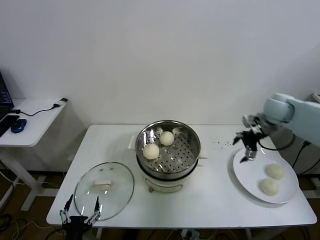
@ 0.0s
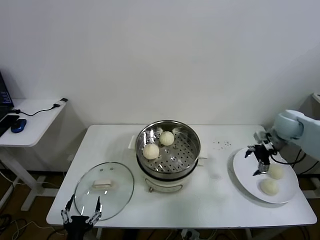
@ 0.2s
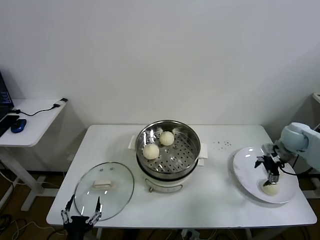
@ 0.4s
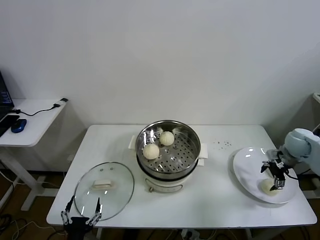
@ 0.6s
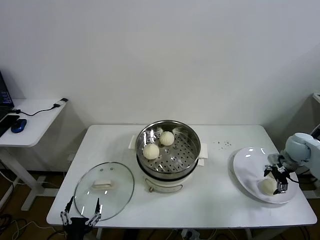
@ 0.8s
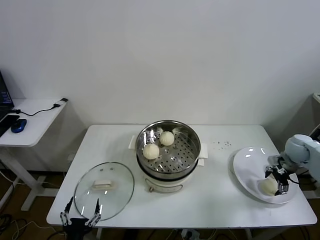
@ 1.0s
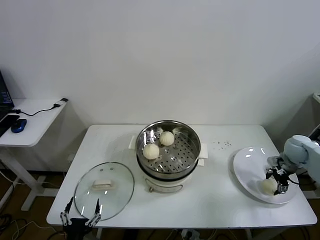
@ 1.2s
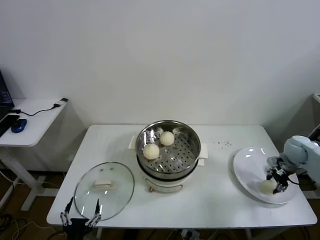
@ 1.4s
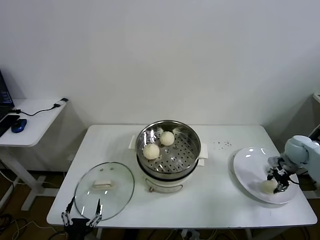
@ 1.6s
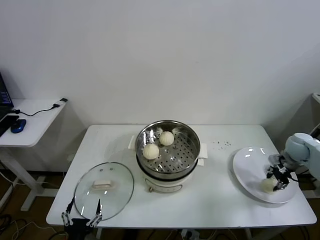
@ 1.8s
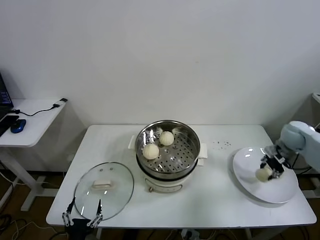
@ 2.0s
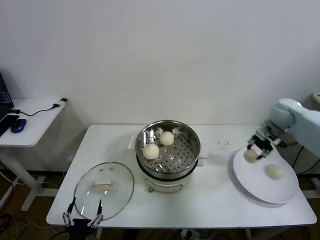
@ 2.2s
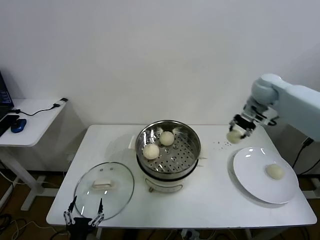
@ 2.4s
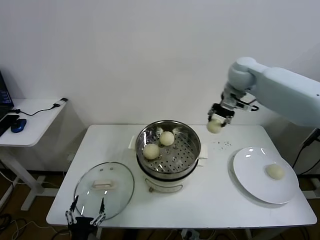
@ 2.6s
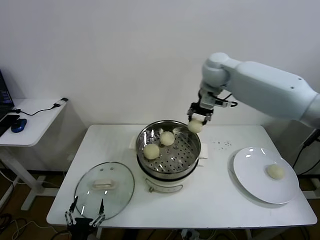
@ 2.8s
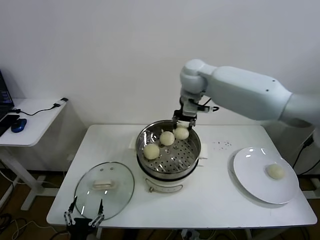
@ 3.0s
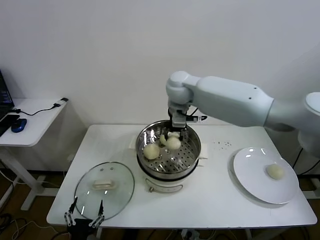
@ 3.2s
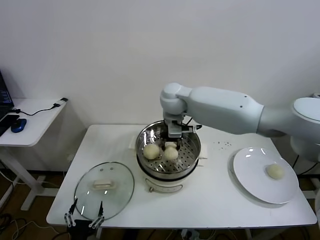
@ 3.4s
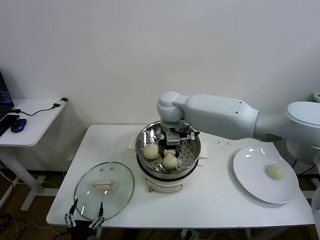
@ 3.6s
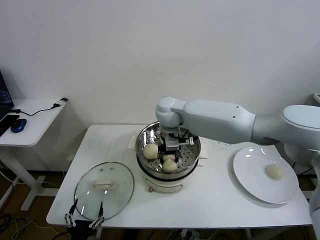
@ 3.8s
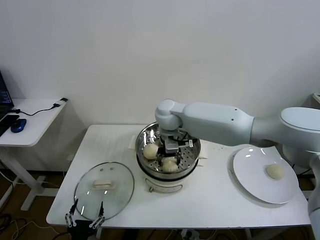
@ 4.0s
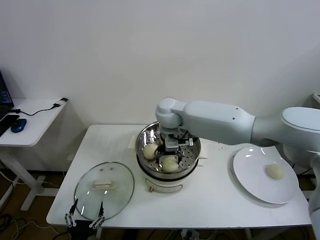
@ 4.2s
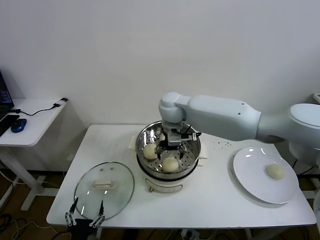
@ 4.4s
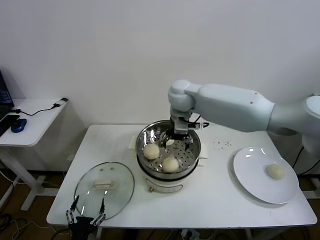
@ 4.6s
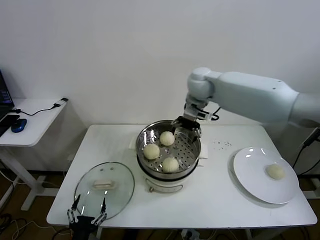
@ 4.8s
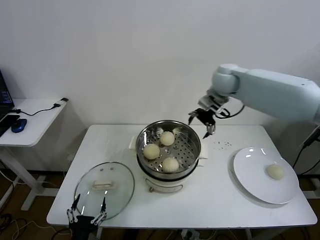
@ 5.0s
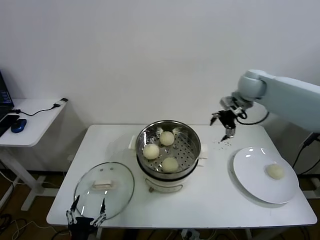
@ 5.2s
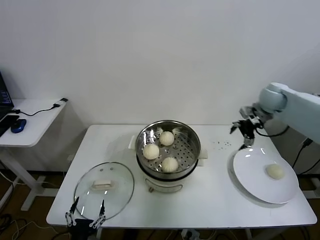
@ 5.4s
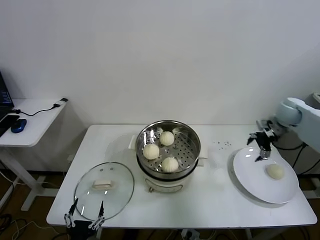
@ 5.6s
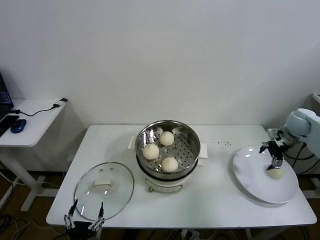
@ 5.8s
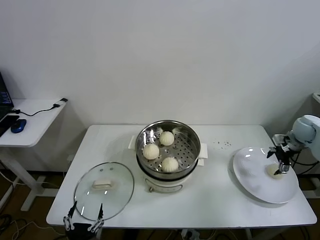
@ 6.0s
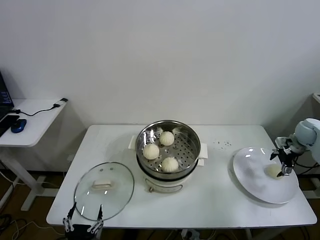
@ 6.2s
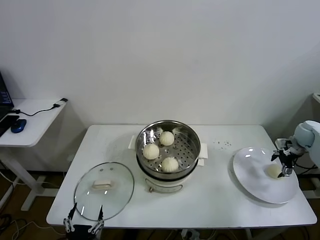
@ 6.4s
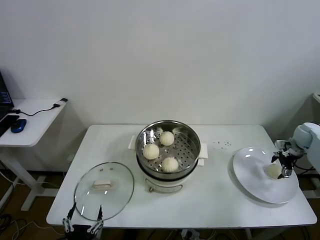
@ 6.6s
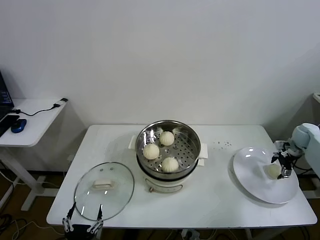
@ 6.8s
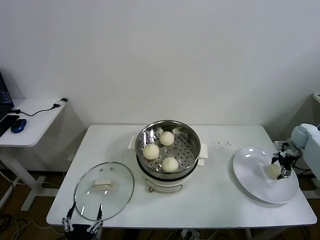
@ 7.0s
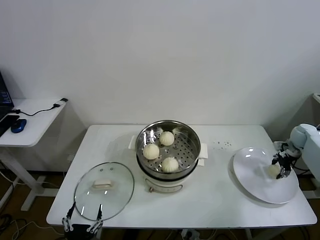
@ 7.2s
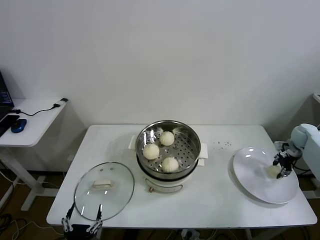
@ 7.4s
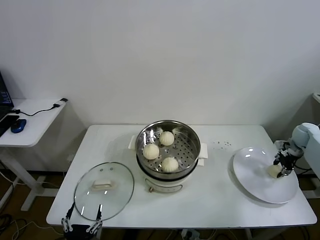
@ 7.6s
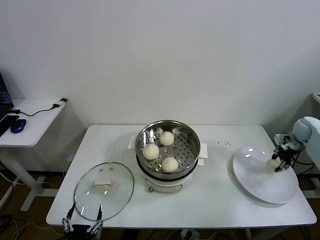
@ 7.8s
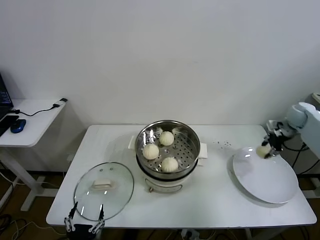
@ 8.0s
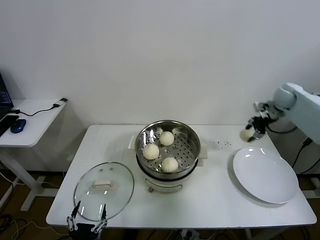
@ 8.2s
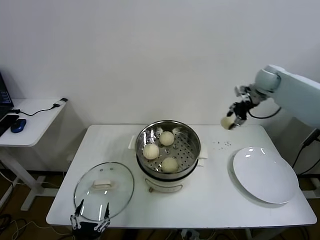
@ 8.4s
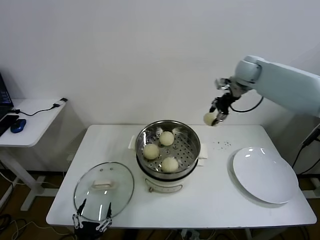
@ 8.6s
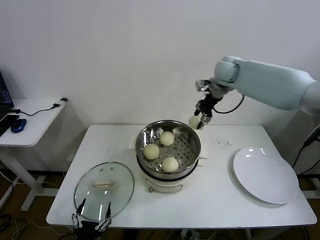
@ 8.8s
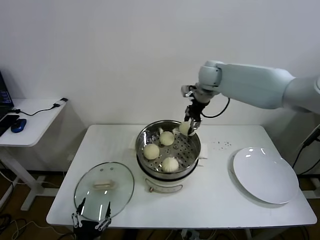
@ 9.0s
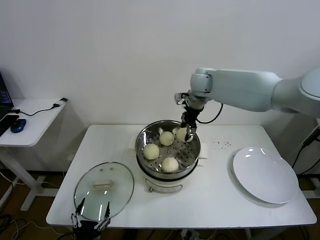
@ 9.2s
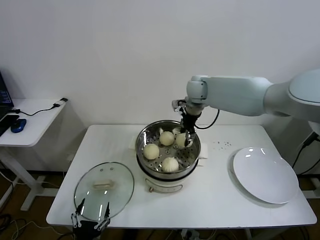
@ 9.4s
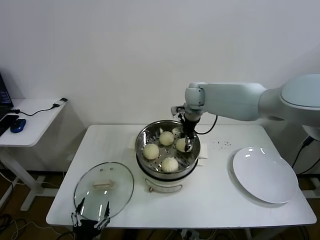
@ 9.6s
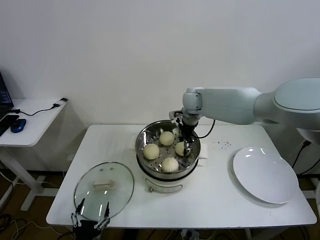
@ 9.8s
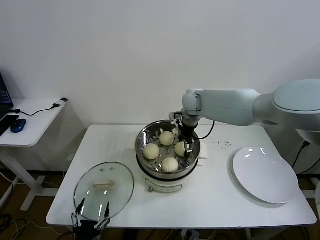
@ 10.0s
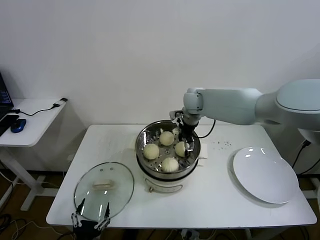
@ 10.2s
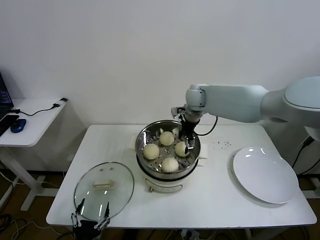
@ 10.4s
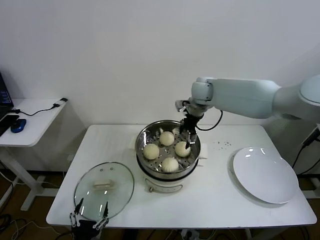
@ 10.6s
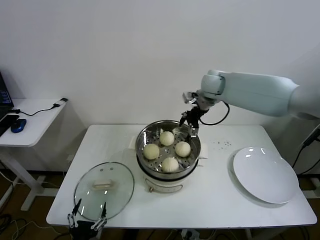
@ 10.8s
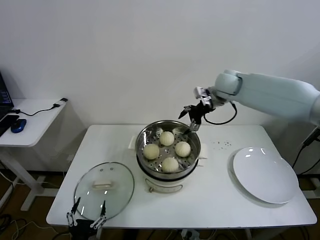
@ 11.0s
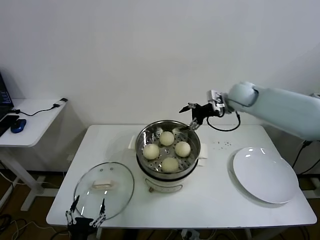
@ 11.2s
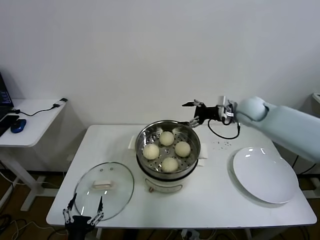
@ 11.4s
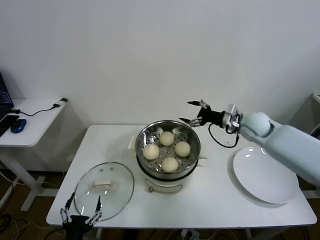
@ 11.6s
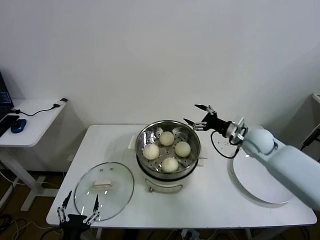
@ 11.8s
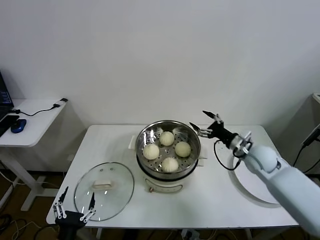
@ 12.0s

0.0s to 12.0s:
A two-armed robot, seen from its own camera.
Task of the whole recording: take steamed baozi put them in steamer.
Step, 0.0s to 1.2s: Grasp the baozi in the plate with right gripper.
Step, 1.4s to 4.4s: Place the baozi on the steamer with right gripper.
Step, 4.6s to 7.2s: Grasp the baozi in the plate with right gripper.
Step, 7.4s to 10.4s: Place the baozi on the steamer with right gripper.
0.0s to 1.6s: The right gripper goes roughly 15 cm downward and to the right, and closes up.
1.6s to 3.0s: The right gripper travels to the left and upward by roughly 50 cm.
3.0s to 4.4s: The right gripper heads downward and to the left, covering about 10 cm, and opens its fingers.
4.4s to 6.0s: The right gripper travels to the right by about 50 cm.
6.0s to 7.6s: The right gripper is displaced downward by roughly 5 cm, and closes its fingers.
7.6s to 9.0s: The right gripper travels to the left and upward by some 50 cm.
9.0s to 10.4s: The right gripper shifts roughly 10 cm downward, and opens its fingers.
10.4s to 12.0s: The right gripper goes some 30 cm to the right, backward and downward.

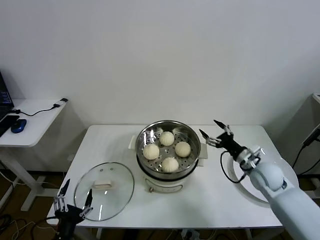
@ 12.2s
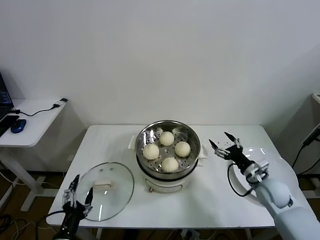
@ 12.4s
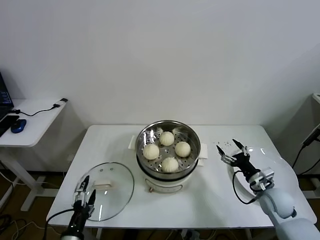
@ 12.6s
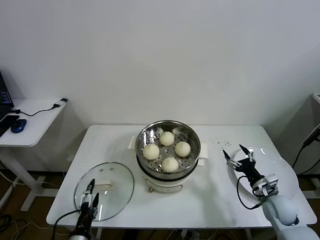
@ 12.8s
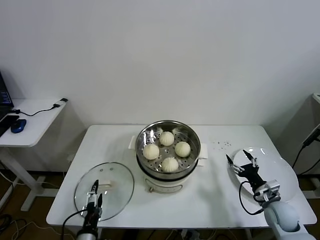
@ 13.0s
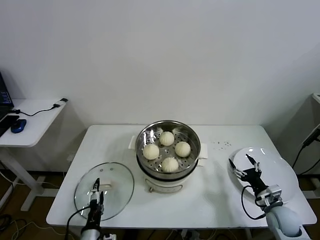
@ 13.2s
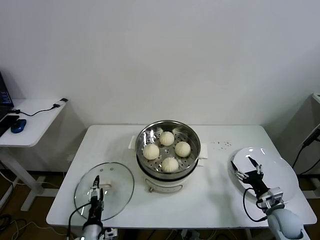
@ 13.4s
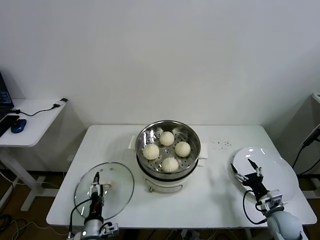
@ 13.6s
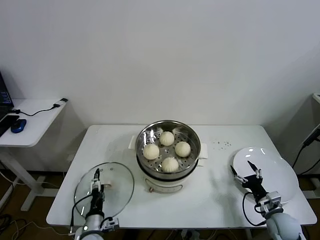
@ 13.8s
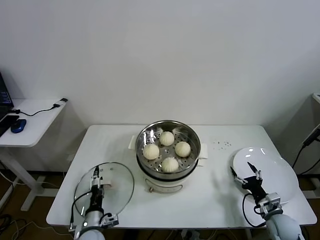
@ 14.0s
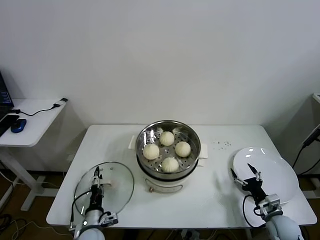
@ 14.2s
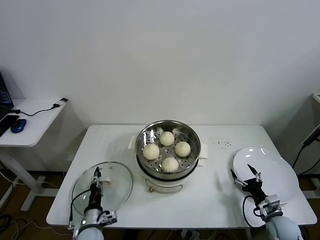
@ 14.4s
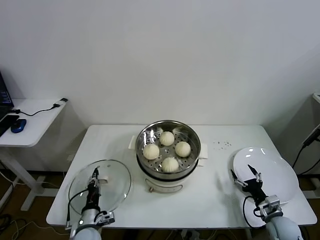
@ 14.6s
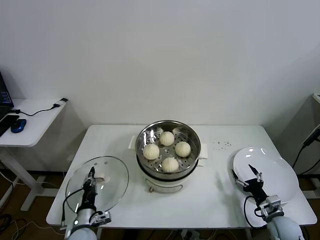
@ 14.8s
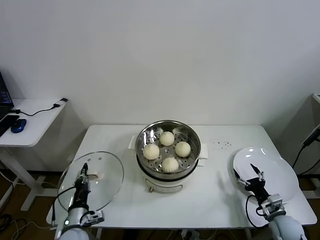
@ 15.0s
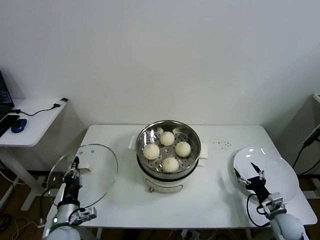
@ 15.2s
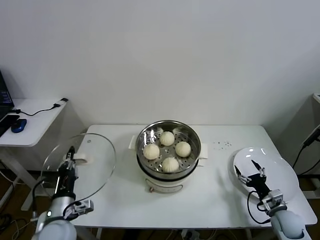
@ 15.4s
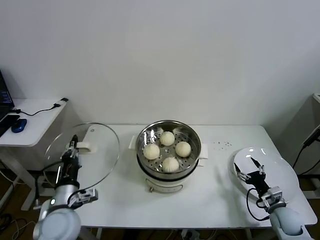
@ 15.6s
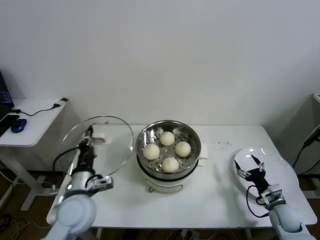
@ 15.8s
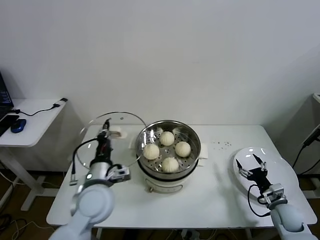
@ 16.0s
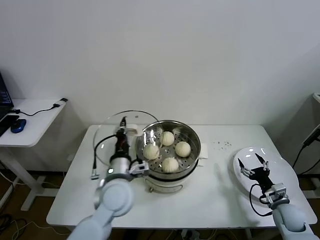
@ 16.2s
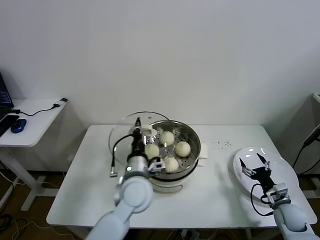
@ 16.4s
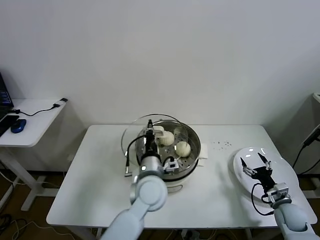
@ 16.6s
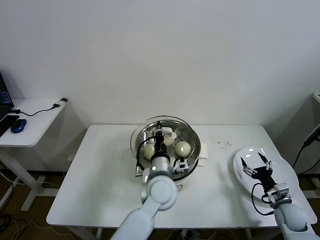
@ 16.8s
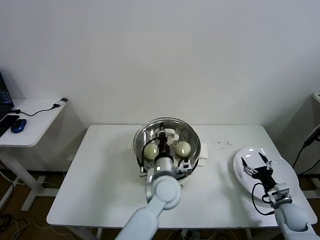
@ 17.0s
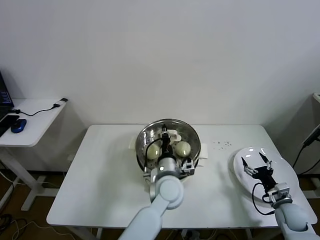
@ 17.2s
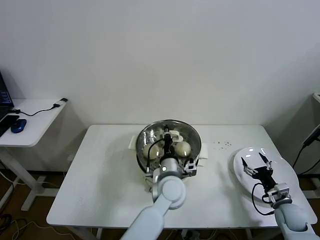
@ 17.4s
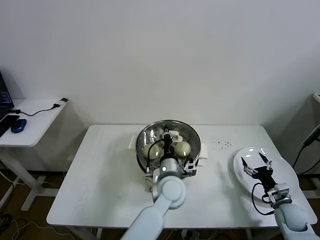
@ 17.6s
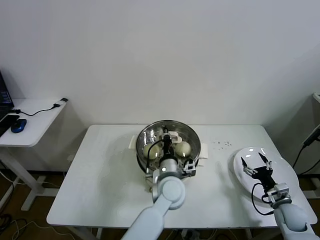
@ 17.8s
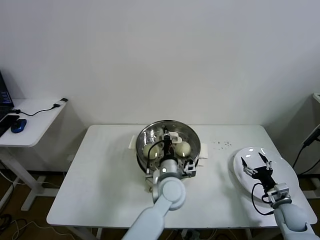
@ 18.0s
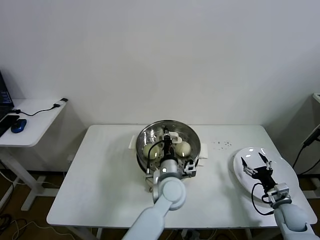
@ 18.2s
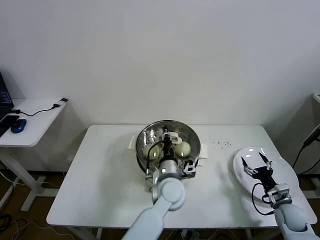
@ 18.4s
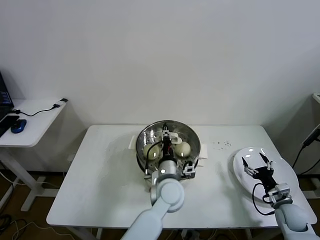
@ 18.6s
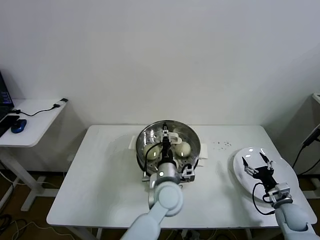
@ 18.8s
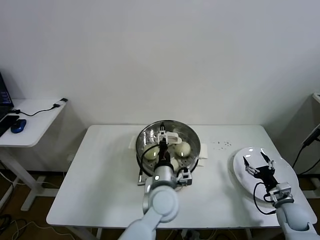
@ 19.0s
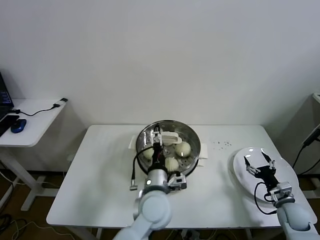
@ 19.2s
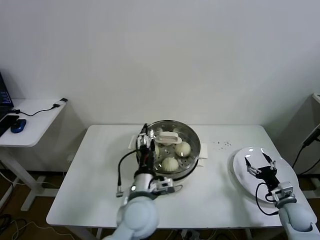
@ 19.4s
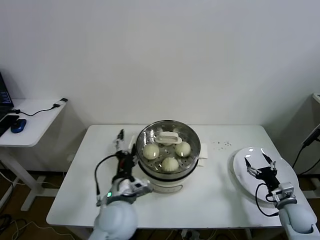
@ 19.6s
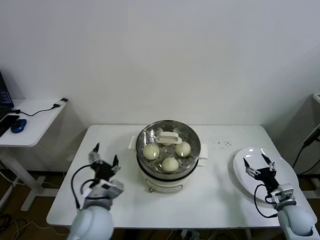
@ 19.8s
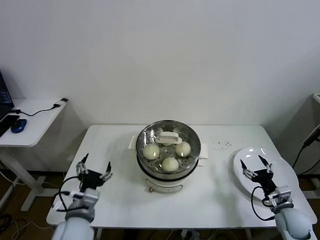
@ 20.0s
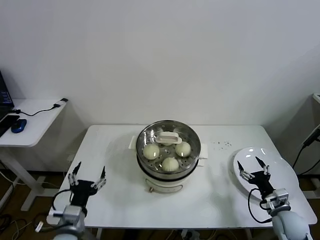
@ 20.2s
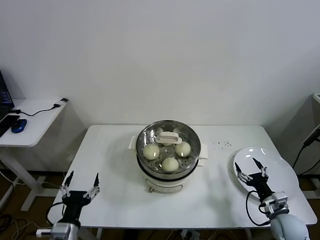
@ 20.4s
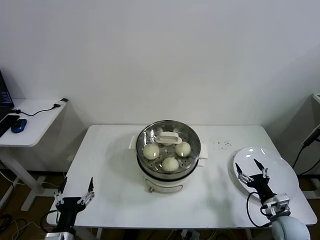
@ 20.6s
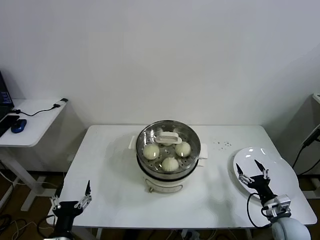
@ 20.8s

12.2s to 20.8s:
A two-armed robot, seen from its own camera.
Task of the whole recording: take steamed baozi put them in steamer.
Step, 12.2s to 14.6s: Grasp the pot lid with left gripper.
Step, 14.8s to 19.0s: Place the pot lid on the steamer with left gripper.
12.2s to 13.6s: The left gripper is displaced downward and forward by approximately 15 cm. Meanwhile the right gripper moves downward, backward and to the right, roughly 20 cm.
13.6s to 15.0s: The left gripper changes place by about 5 cm, and closes up.
15.0s to 16.6s: The left gripper goes roughly 30 cm to the right, upward and forward.
16.6s to 18.0s: The left gripper travels to the right by roughly 5 cm.
18.0s to 19.4s: The left gripper shifts about 10 cm backward and to the left, and opens.
19.4s to 20.8s: The right gripper shifts some 5 cm to the left. The left gripper is displaced to the left and backward by some 30 cm.
